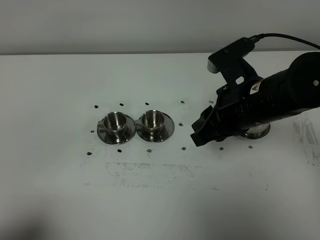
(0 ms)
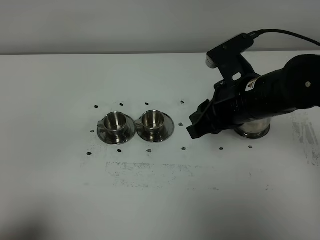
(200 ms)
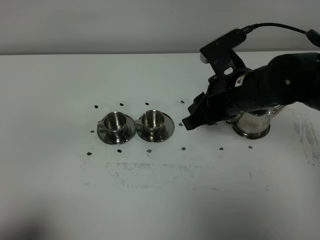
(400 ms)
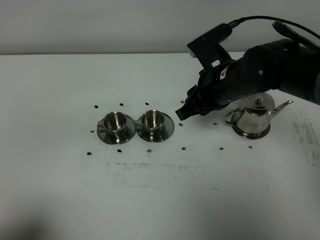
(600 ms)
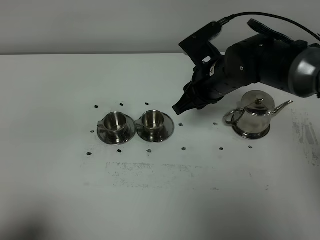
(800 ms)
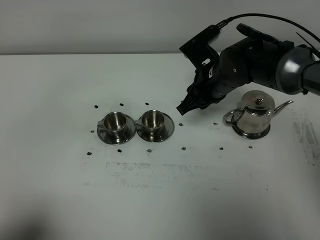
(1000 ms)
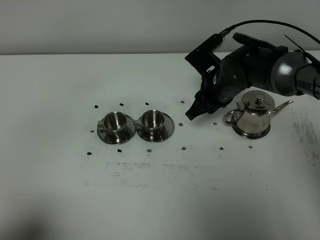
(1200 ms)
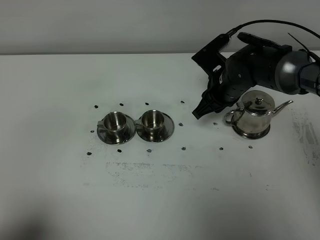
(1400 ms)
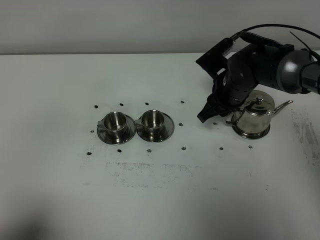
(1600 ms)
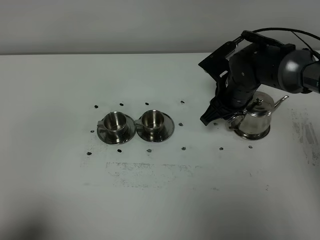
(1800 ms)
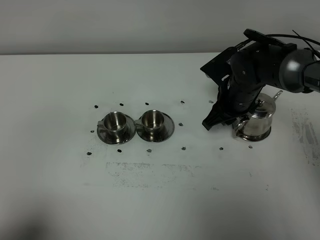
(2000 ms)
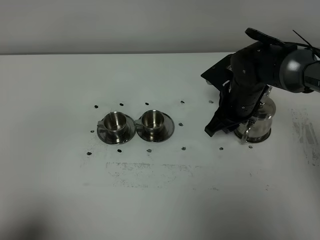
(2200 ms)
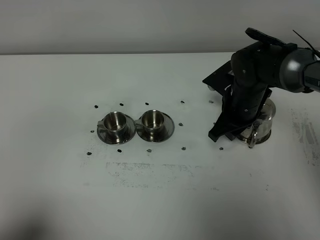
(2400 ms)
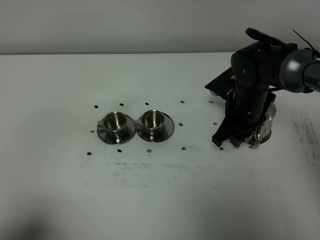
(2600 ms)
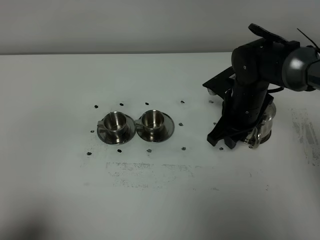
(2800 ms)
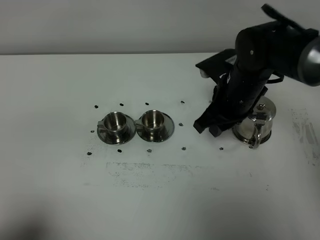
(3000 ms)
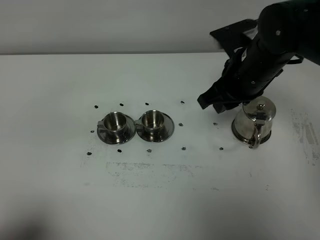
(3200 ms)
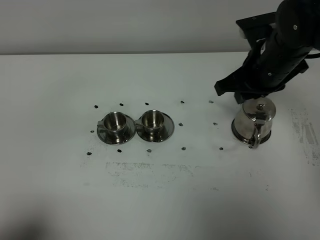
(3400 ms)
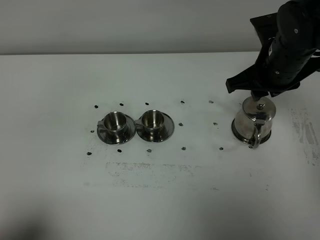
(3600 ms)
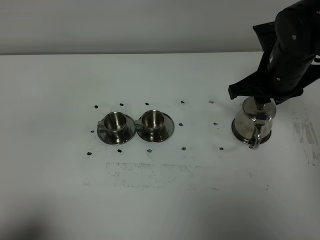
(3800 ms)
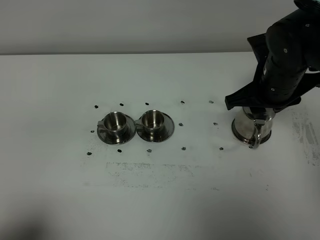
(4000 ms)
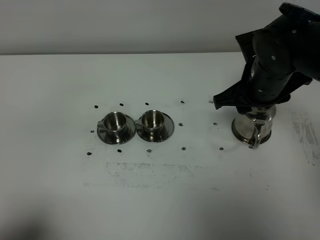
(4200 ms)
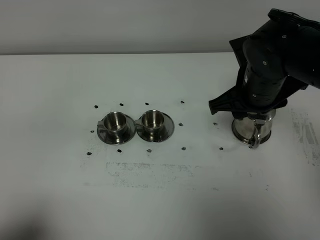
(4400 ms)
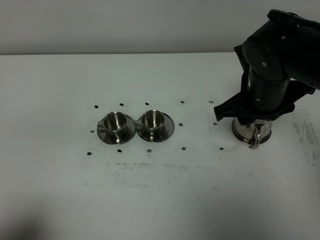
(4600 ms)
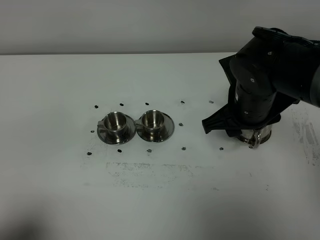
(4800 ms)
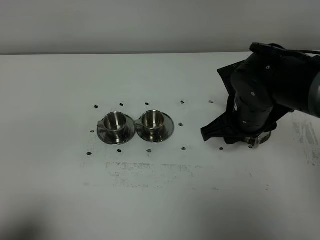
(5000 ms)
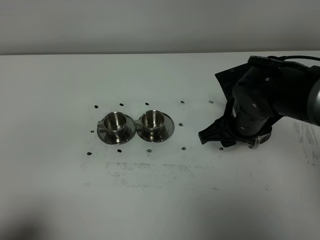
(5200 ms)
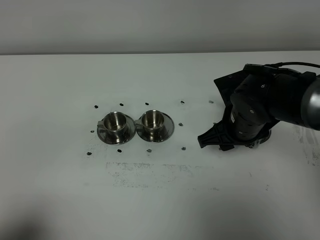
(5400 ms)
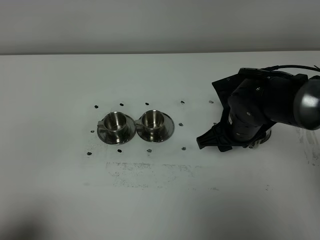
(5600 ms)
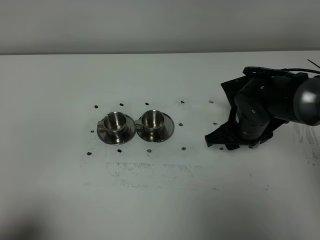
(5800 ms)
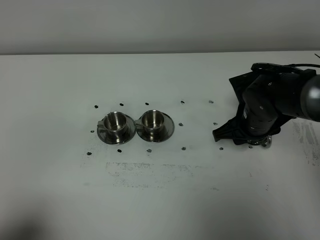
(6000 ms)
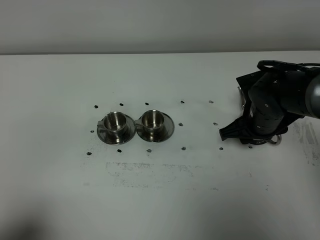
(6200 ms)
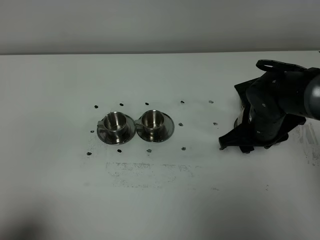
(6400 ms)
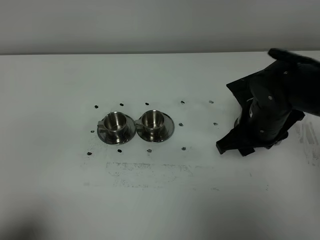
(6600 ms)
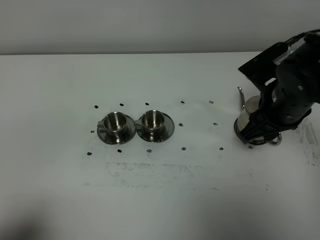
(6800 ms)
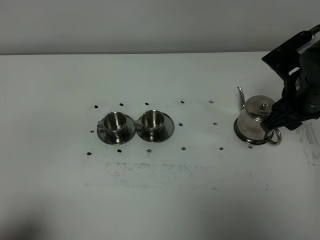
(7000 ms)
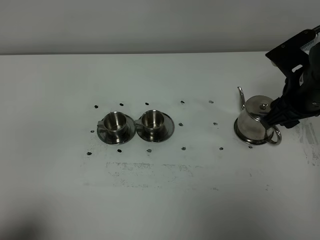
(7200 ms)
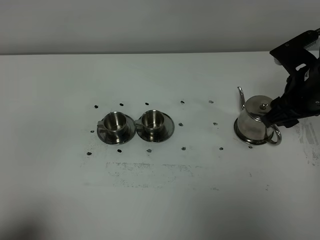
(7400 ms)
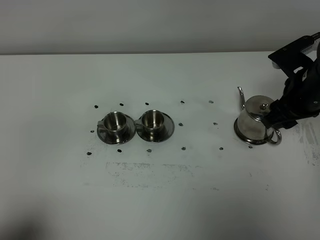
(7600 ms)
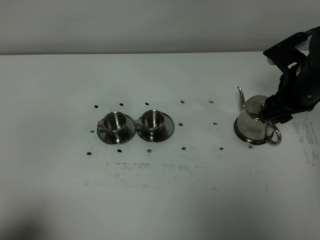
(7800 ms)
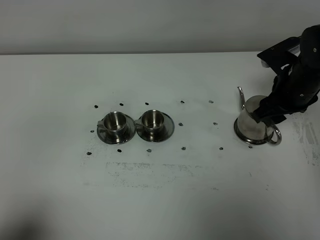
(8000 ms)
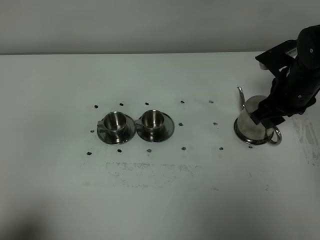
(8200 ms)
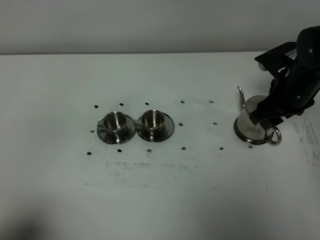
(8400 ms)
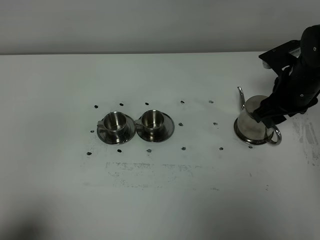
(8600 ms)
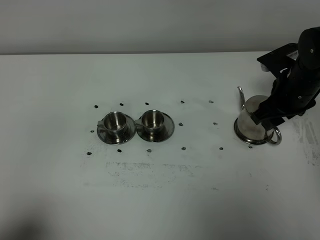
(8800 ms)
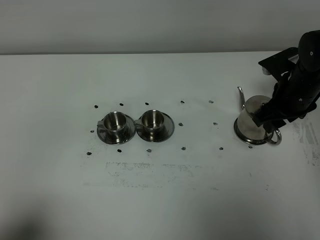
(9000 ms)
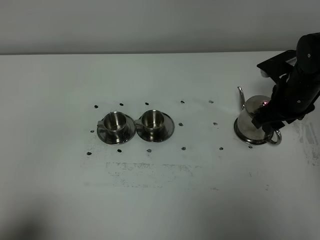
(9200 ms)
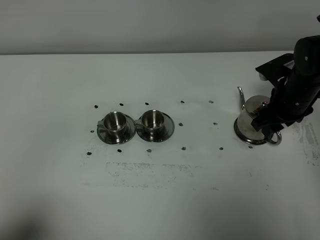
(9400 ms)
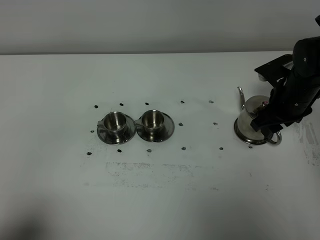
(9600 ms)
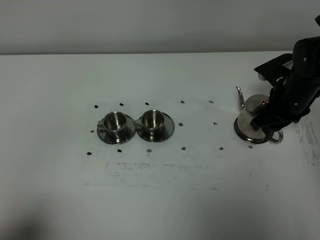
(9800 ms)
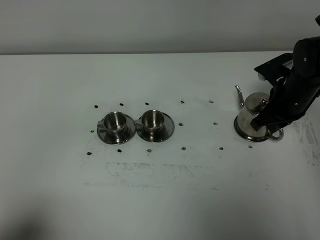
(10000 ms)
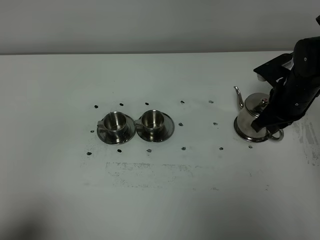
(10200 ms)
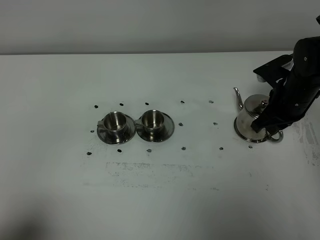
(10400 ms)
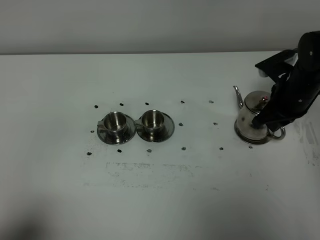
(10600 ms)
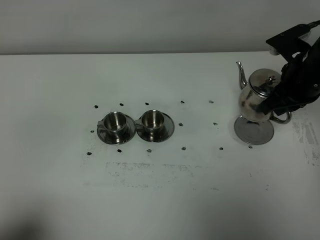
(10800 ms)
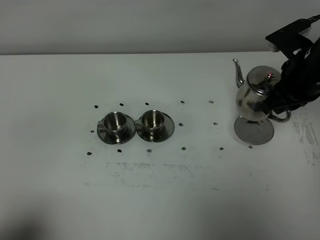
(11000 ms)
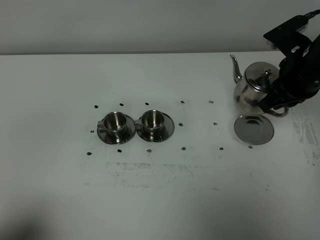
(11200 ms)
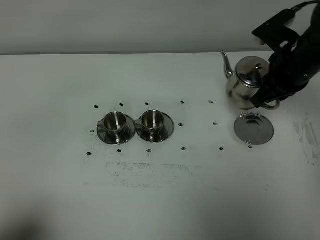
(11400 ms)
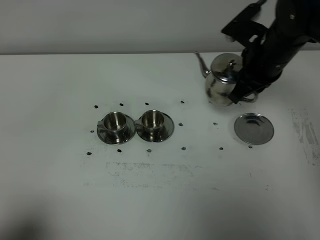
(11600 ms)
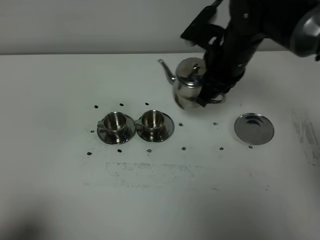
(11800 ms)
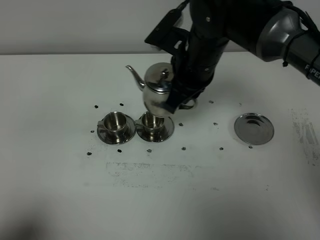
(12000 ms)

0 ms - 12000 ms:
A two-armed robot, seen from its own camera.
Task of the whole recording: grasp the stainless steel teapot and pour the tea into the two stainless steel teacups one by one, put the stainless steel teapot back in its original place.
Step, 0 ms - 10800 ms: Pick up the teapot with the right gripper.
0 ms - 1600 ms: The right gripper heads forward and downward, covering about 15 cm.
1600 ms - 3000 ms: The right gripper goes about 10 cm upward and backward.
4400 ms - 6000 ms: The right gripper moves downward, about 10 cm.
6000 ms - 7600 ms: The right gripper shifts approximately 10 cm upward and to the right.
7600 ms - 9000 ms: The right gripper ends up roughly 5 cm from where it was.
9000 ms - 10400 ms: The right gripper closes its fingers.
10400 ms - 12000 ms: The right gripper shifts about 20 cm to the left and upward.

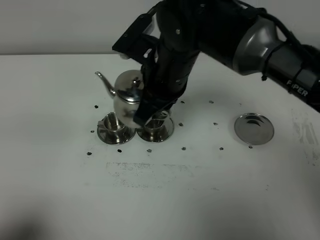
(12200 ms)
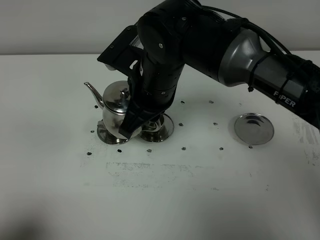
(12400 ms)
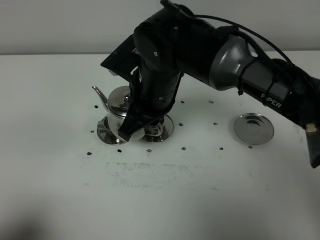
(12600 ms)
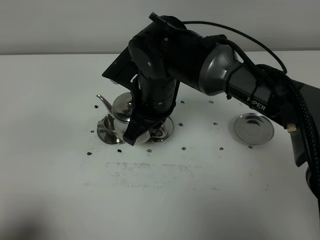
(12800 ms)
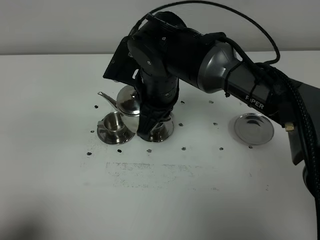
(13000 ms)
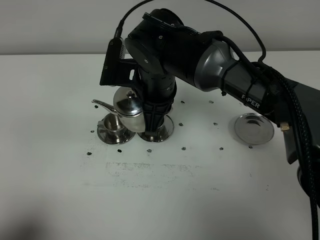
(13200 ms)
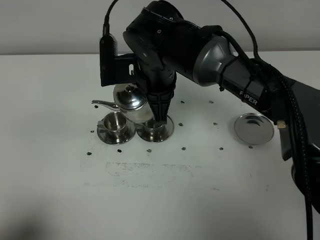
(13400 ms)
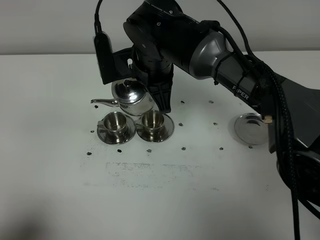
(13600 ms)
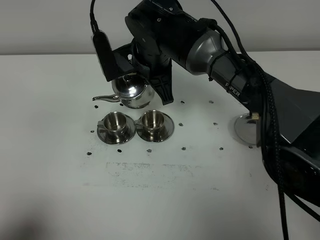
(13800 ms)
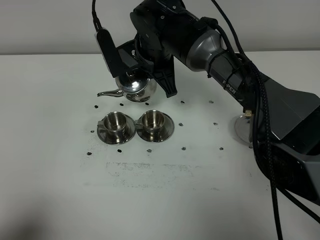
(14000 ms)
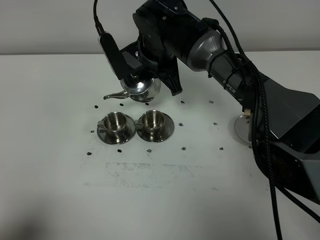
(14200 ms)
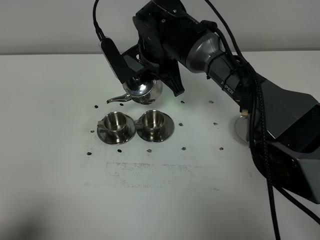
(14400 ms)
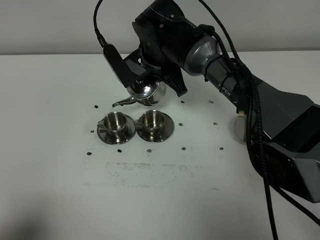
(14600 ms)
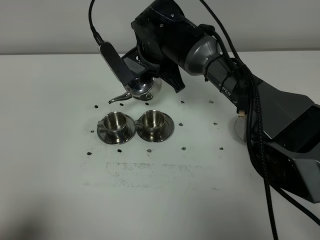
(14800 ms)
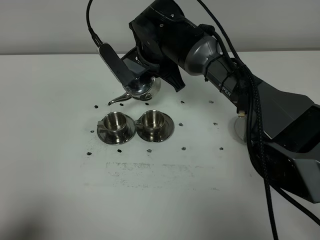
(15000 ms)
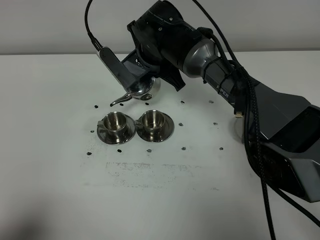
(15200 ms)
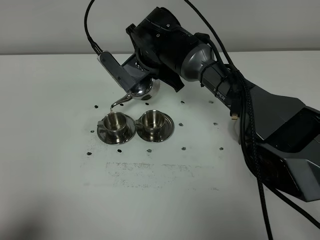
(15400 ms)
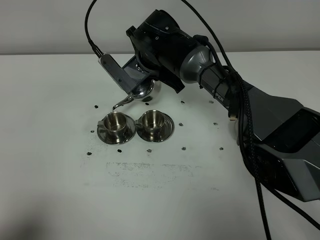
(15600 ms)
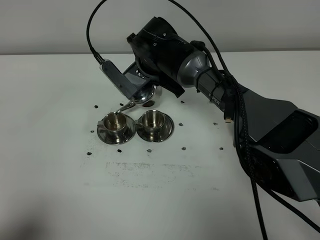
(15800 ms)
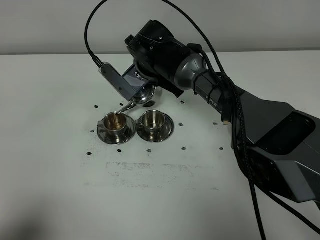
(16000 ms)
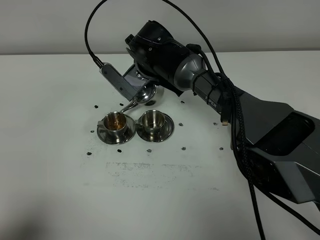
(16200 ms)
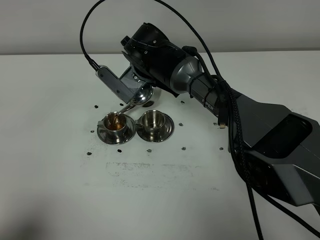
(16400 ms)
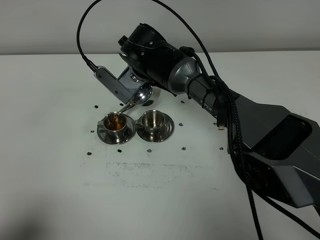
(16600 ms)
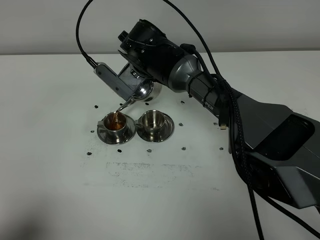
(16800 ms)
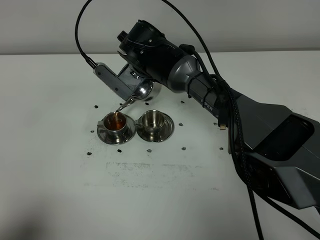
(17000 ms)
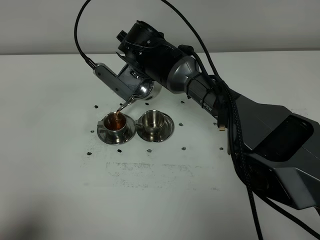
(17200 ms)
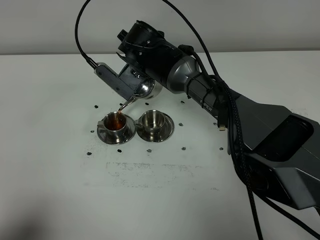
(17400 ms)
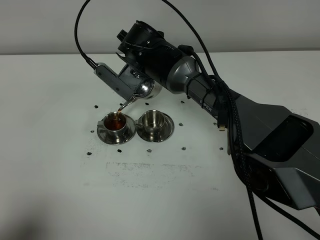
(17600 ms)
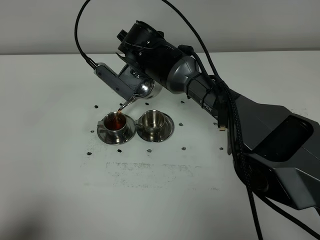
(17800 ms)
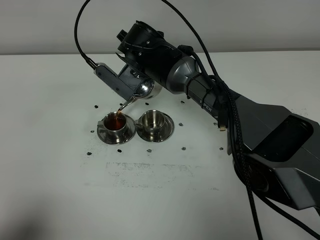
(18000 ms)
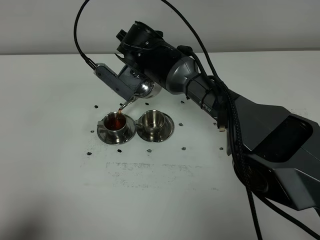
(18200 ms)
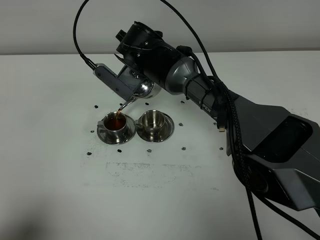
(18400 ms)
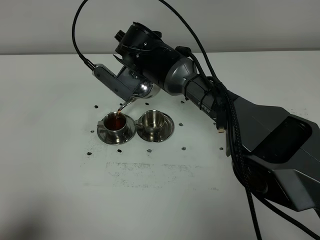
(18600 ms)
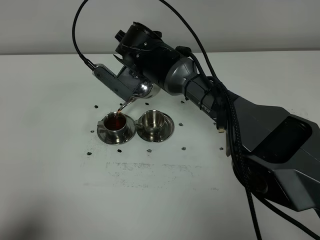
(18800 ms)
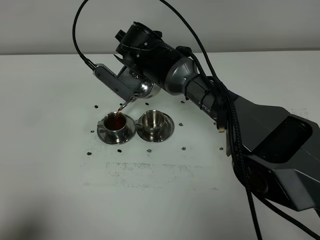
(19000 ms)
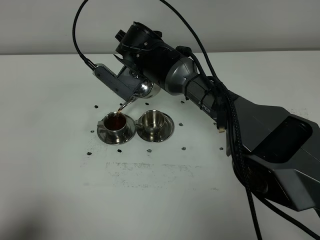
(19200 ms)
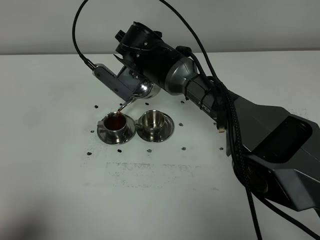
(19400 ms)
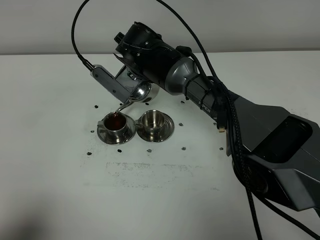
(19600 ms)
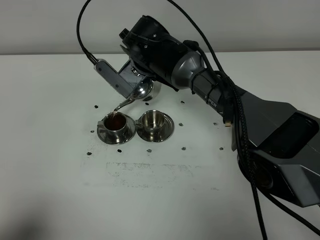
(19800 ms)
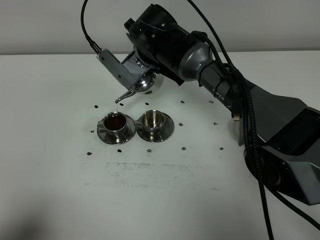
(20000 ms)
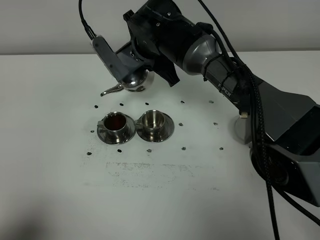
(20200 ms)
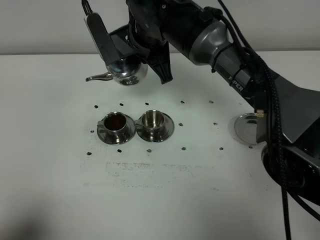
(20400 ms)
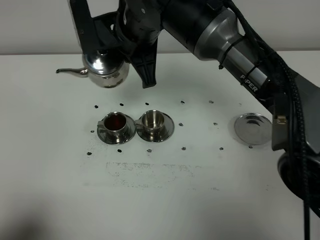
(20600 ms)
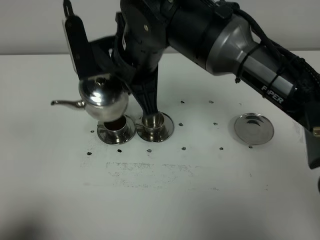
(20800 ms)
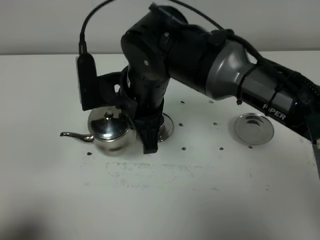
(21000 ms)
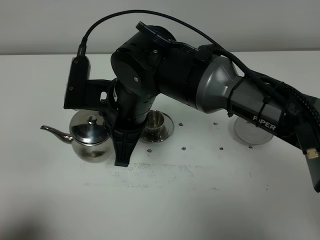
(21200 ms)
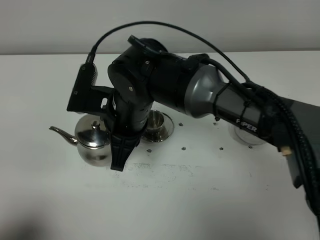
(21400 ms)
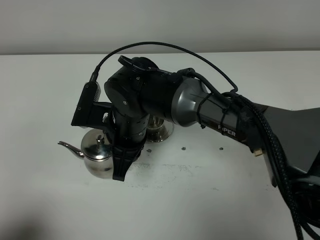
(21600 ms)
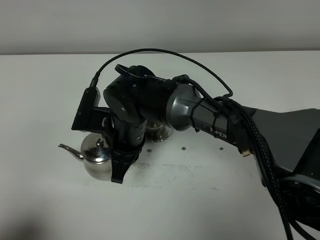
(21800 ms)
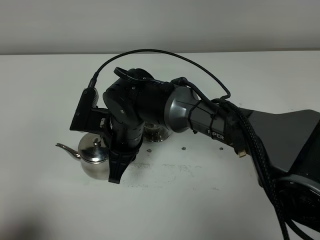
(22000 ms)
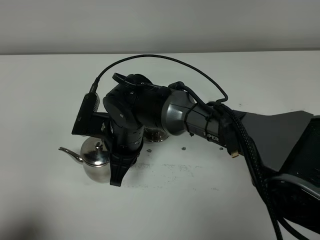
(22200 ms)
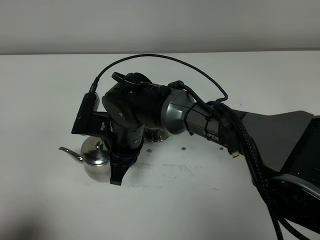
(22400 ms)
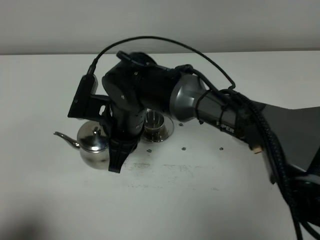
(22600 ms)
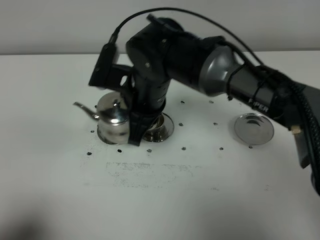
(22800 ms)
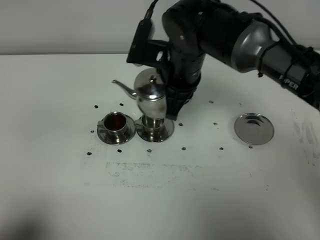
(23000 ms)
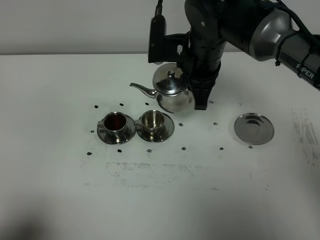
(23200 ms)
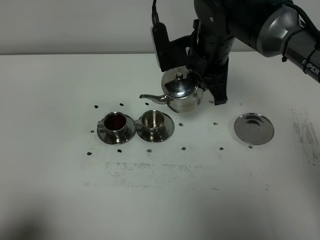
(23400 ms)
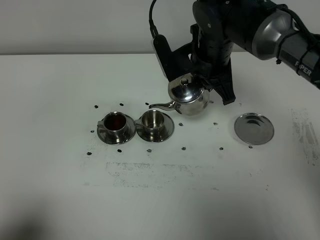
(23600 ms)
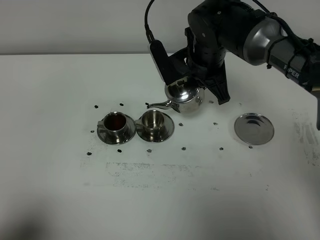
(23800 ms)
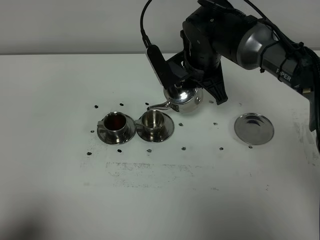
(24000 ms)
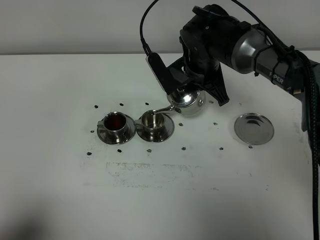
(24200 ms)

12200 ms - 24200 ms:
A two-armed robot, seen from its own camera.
Task of the whole recording: grasp the stainless steel teapot and pour the tea into the two stainless steel teacups one by one, put the stainless steel teapot back in its original place.
12200 ms - 13800 ms: The right gripper travels forward by some 10 cm.
13800 ms - 15200 ms: The right gripper ends up about 5 cm from where it was.
16600 ms - 19800 ms: The grippers make only small movements.
19800 ms - 21200 ms: The right gripper heads backward, covering some 15 cm.
22600 ms - 24200 ms: The right gripper moves to the right and forward, about 20 cm.
